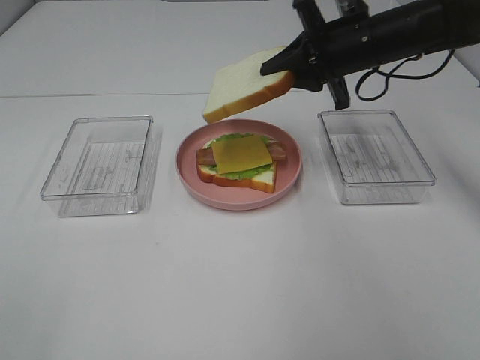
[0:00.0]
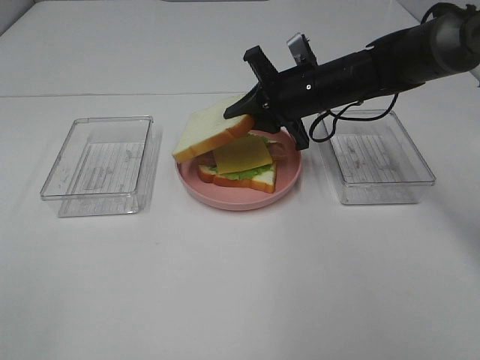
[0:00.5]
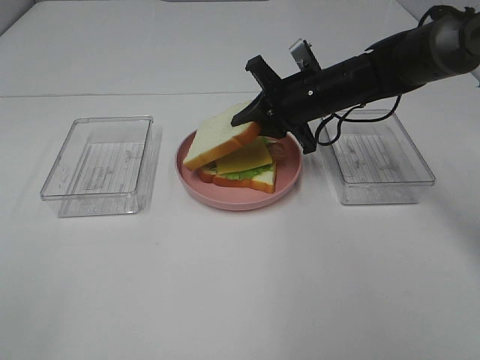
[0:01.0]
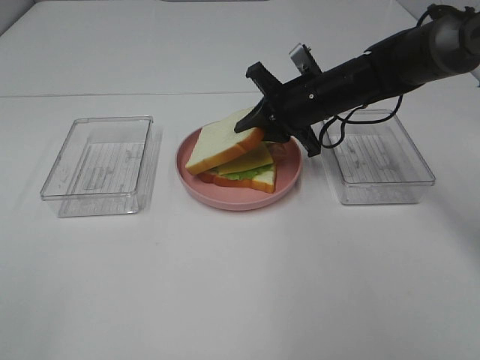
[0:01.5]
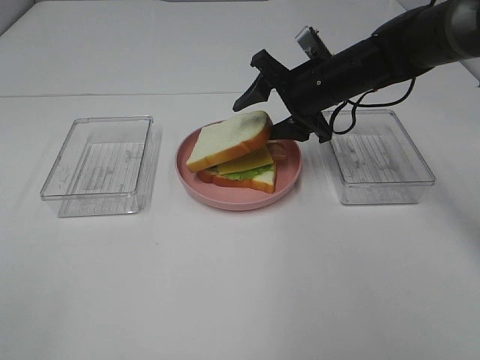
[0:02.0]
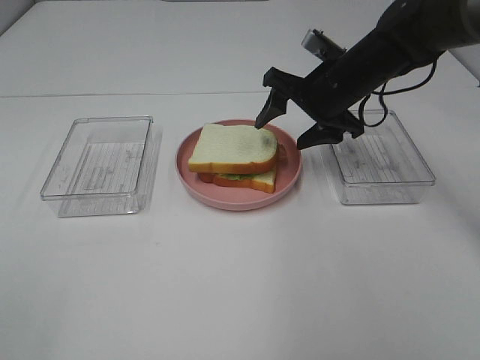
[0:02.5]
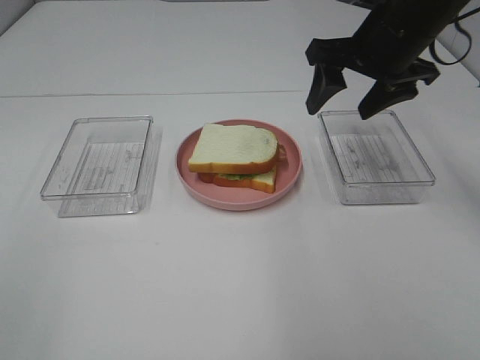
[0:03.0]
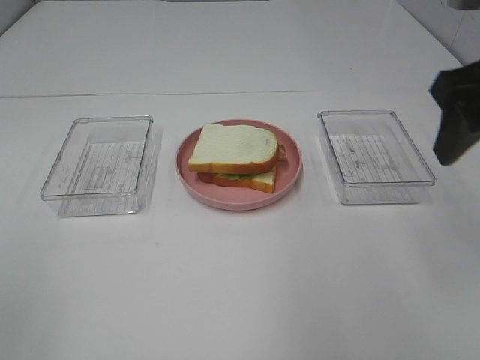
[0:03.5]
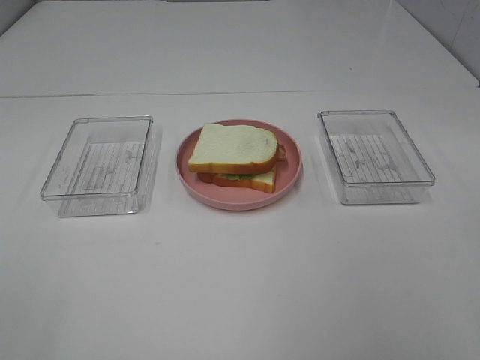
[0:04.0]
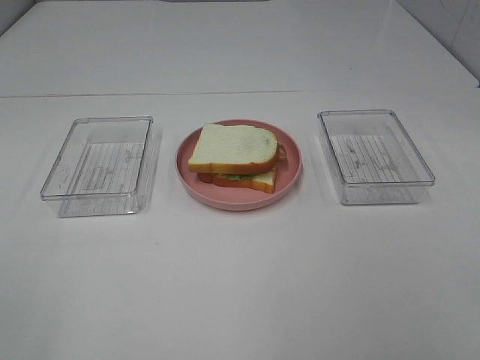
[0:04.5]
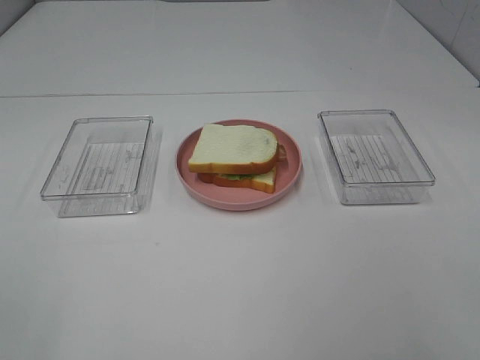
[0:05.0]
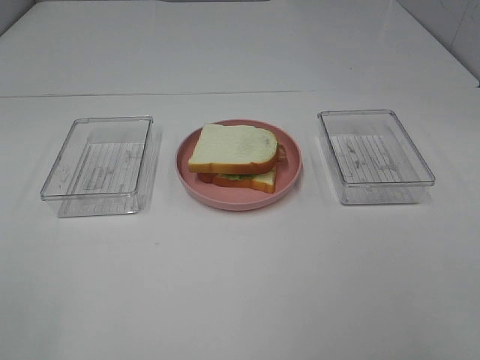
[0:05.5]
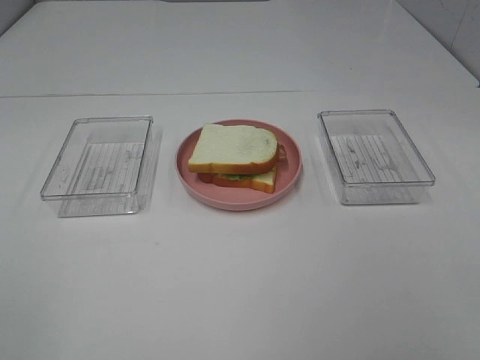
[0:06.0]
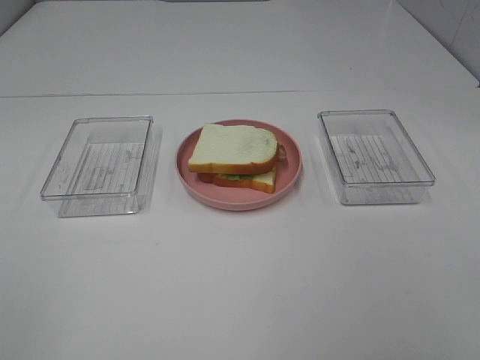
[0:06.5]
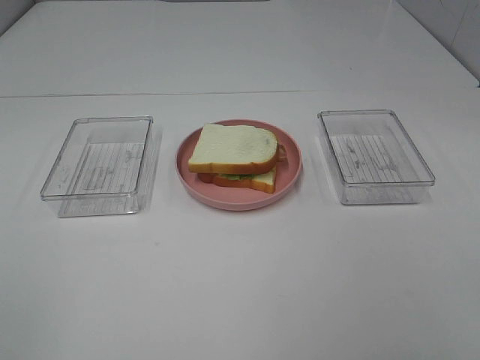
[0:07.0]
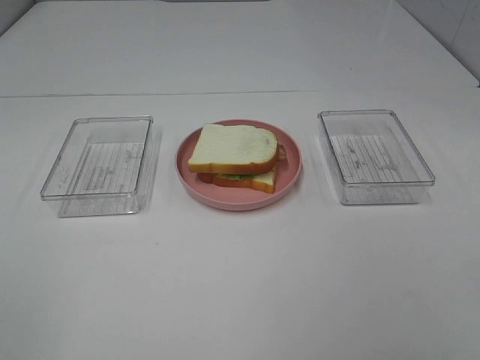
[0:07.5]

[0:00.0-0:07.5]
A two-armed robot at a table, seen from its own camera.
Task of the whole recording: Make sandwiches.
Step, 0:00.0 to 0:02.5: Right hand:place the bread slice on the cheese slice.
0:00.0 to 0:02.0: The right gripper changes place by some 5 cm, and opens up.
0:02.0 to 0:04.0: The right gripper travels backward, upward and to the right by approximately 40 cm.

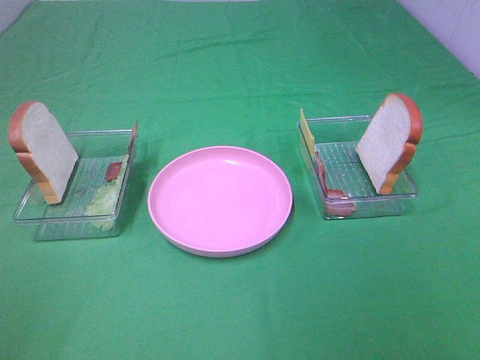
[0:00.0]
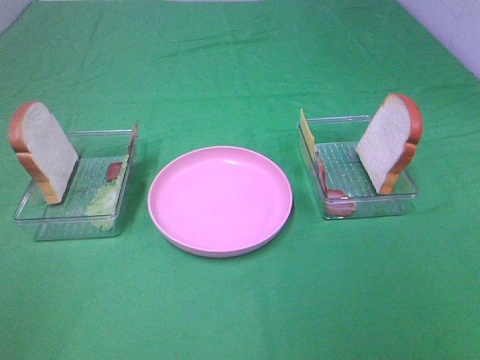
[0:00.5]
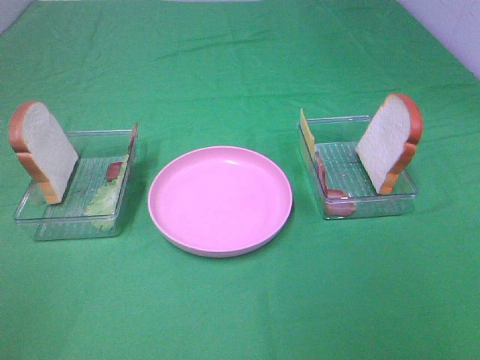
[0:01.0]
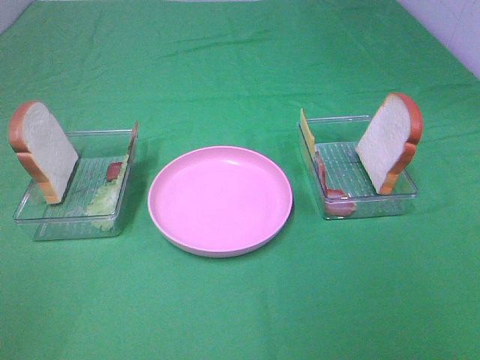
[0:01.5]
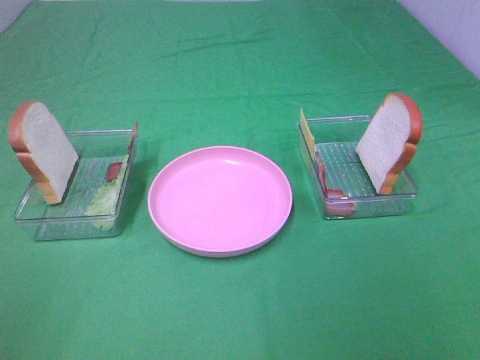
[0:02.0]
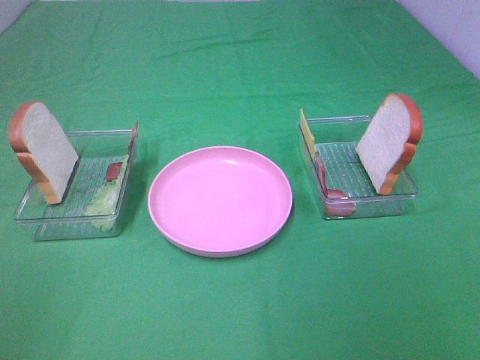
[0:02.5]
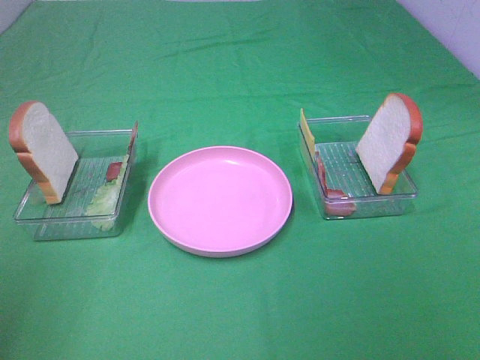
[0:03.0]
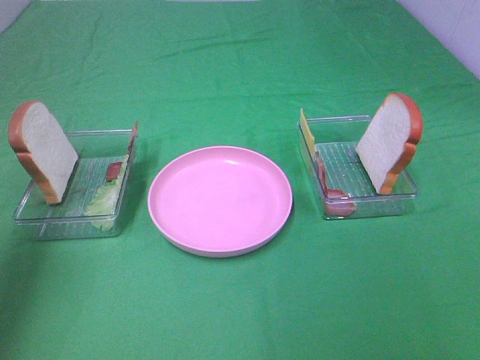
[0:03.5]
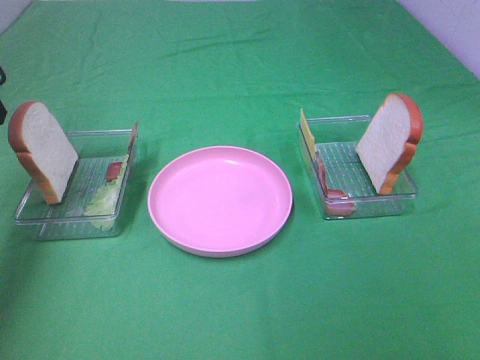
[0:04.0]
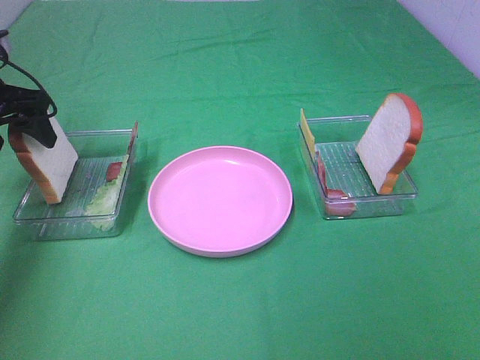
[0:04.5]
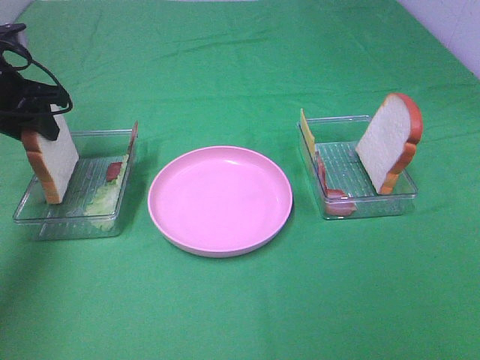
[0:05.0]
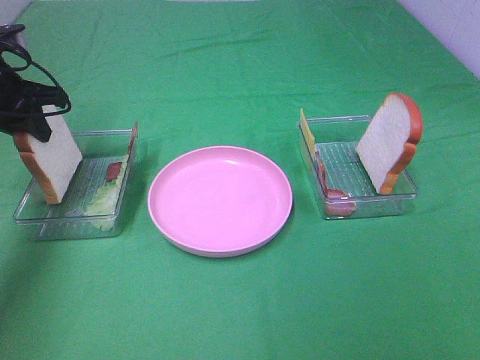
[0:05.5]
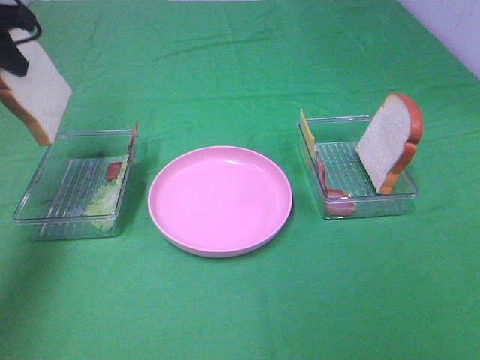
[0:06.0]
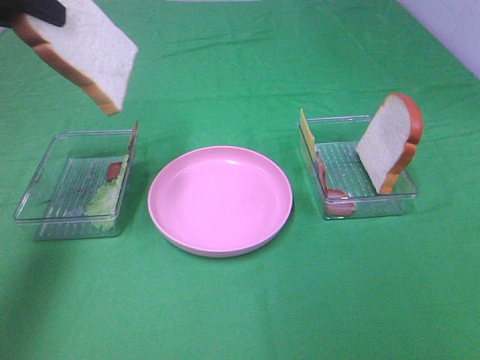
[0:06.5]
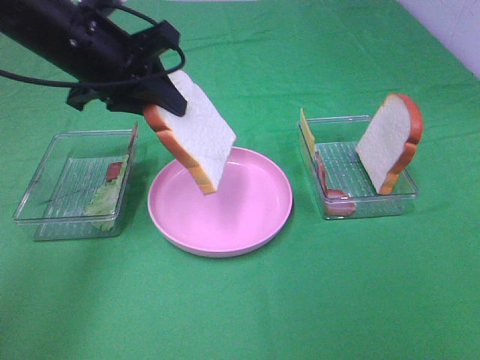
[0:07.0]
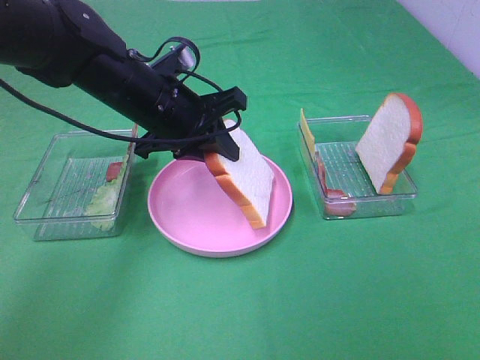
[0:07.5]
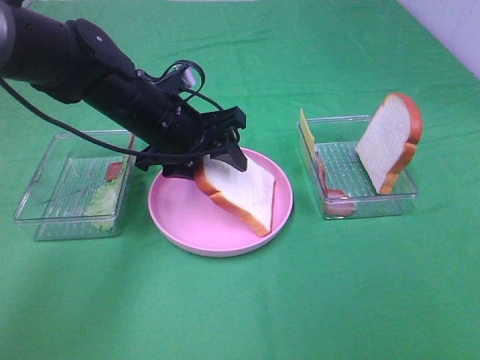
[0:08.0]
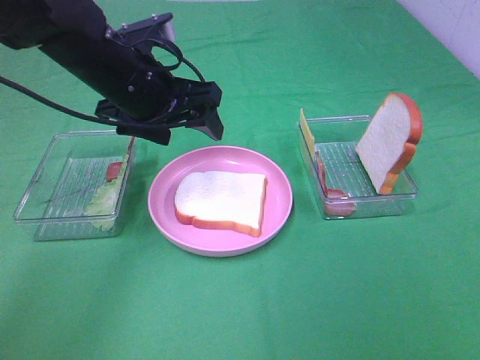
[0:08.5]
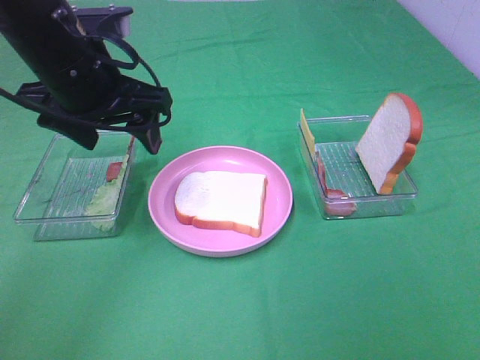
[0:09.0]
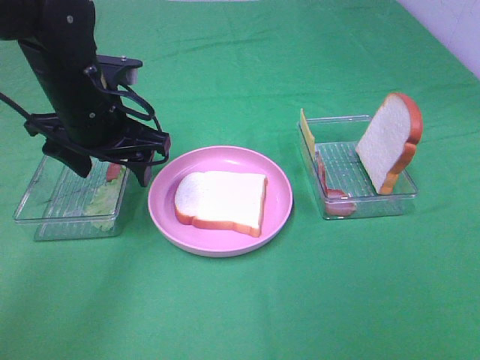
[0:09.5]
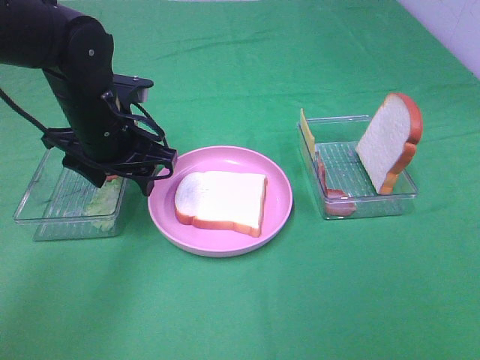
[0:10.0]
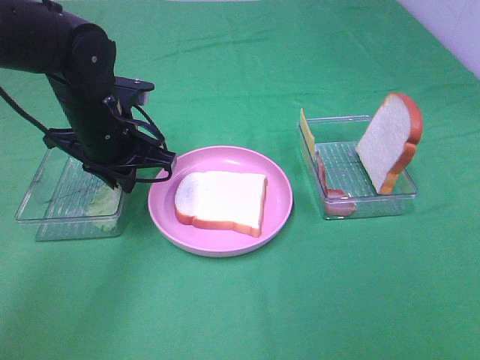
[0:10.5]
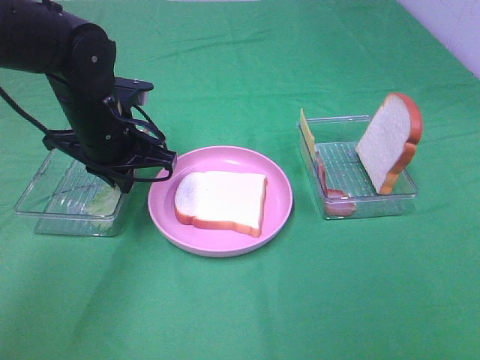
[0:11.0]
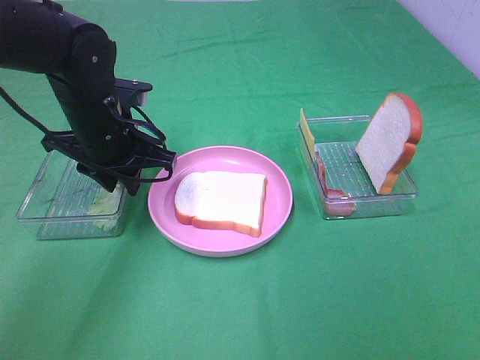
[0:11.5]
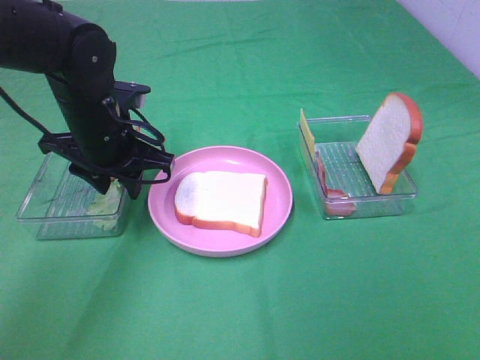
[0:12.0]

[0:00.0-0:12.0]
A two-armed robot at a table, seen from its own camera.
Task of the whole recording: Make sandwiches.
Step, 0:00.0 to 0:05.5: Left hand:grab the bread slice.
Step, 0:06.0 to 0:08.5: Left hand:place the bread slice on the plate.
0:00.0 to 0:02.0: Both grippers stay about where they are.
0:02.0 to 0:04.0: The left gripper heads forward, covering some 35 cm.
0:04.0 to 0:06.0: The left gripper closes its fingers.
0:06.0 to 0:08.0: The left gripper is displaced to the right and downward by some 25 cm, and opens.
0:08.0 to 0:10.0: The left gripper shifts some 5 cm to the left, and goes upward and returns, about 10 cm each way.
0:10.0 to 0:12.0: The left gripper closes and opens again.

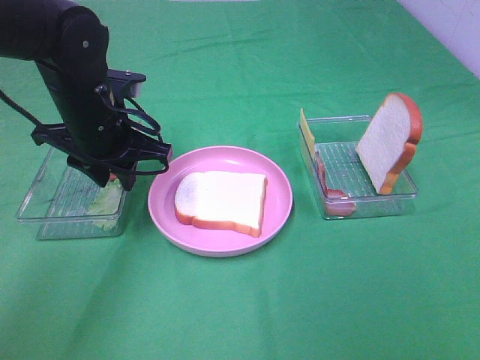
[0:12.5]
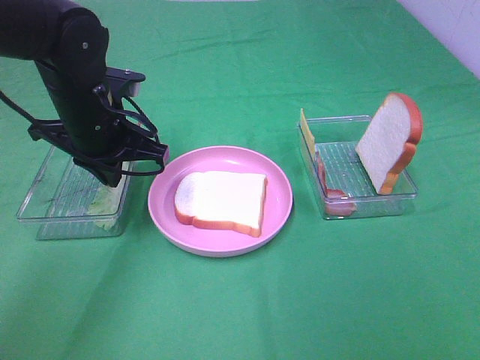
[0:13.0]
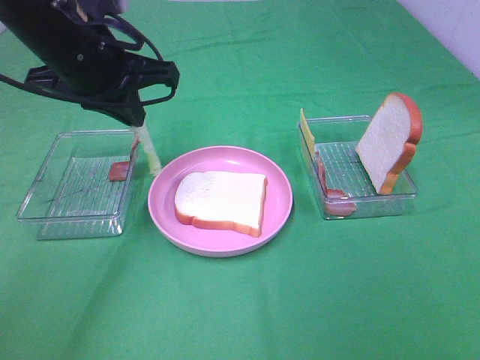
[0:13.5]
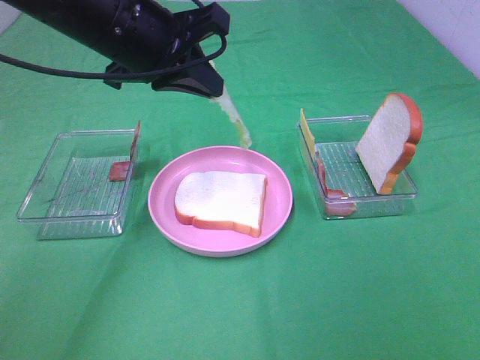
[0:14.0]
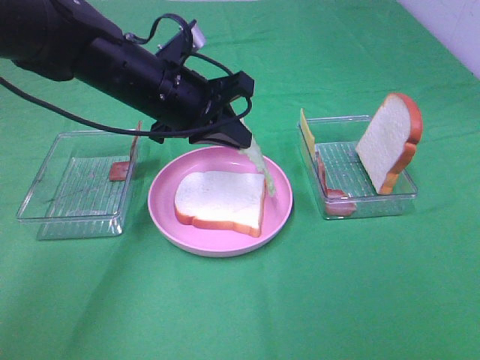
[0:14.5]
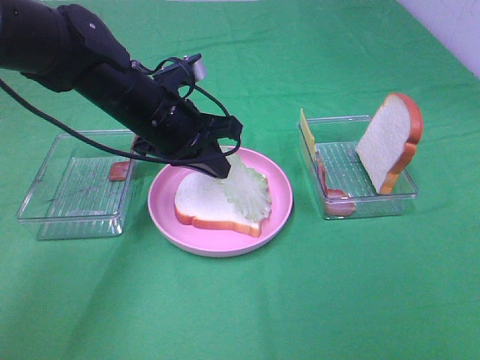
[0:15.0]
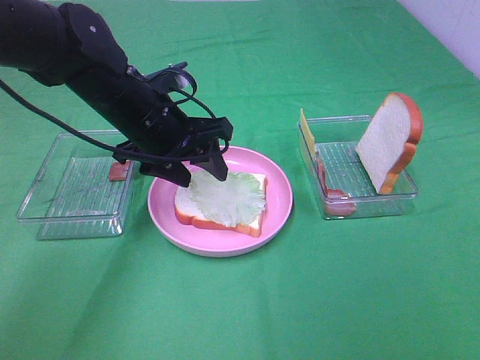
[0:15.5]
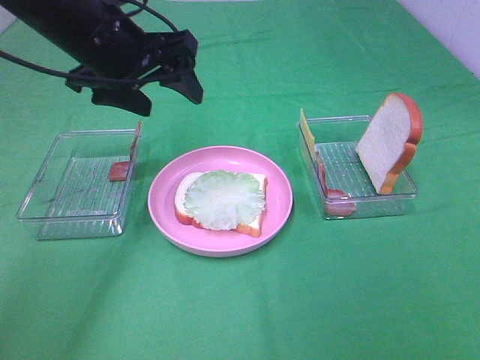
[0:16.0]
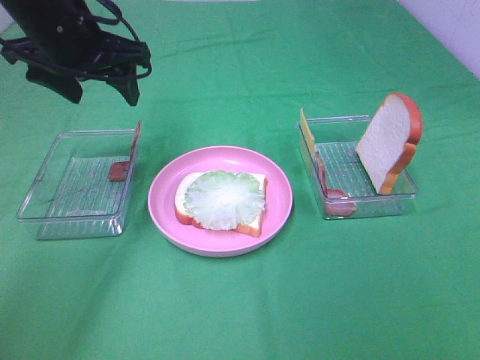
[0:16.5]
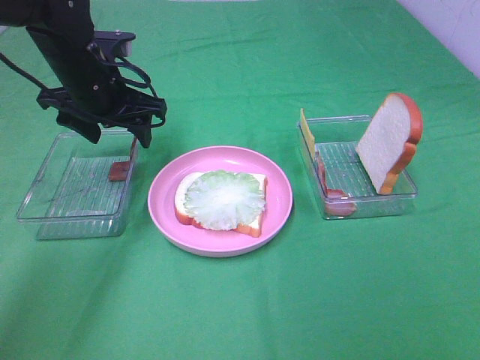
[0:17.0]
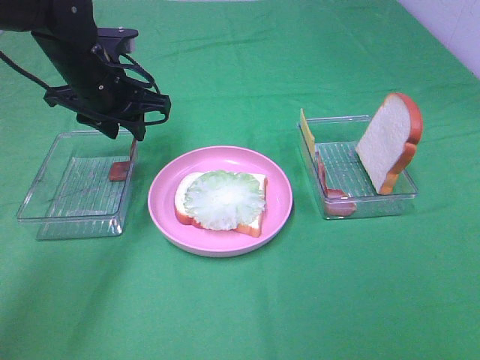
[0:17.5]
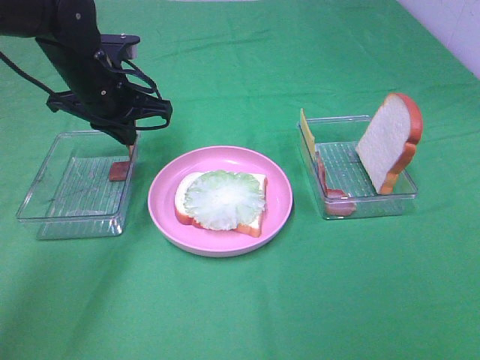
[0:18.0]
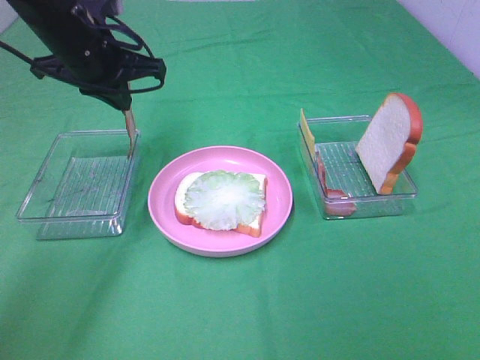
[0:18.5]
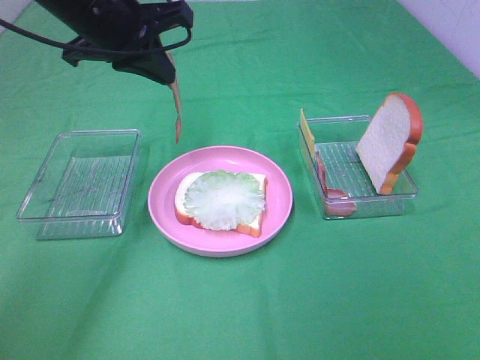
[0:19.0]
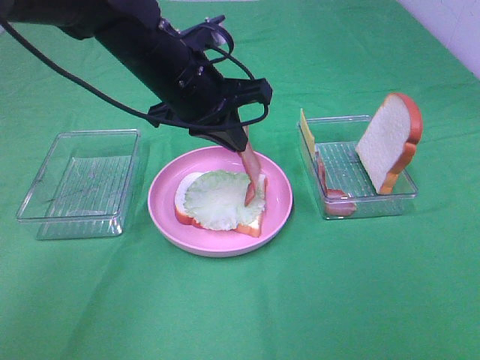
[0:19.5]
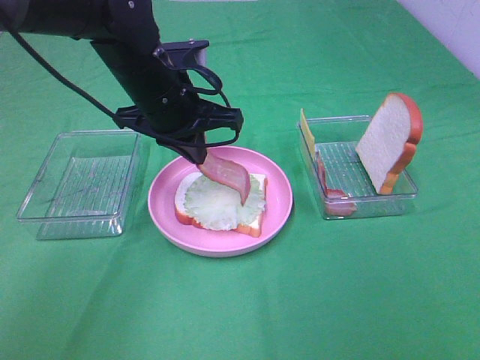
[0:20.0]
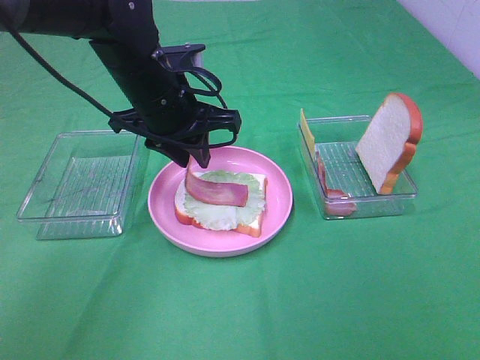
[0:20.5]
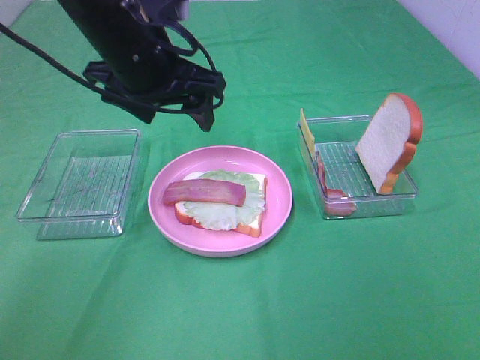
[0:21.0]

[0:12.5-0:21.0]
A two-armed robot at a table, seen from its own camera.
Task of the whole recording: Make sandwiches.
Step, 0:13.0 to 0:15.5: Left hand:place the lettuce slice on the bread slice.
Step, 0:16.0 to 0:18.0: Left hand:grab the bacon.
Step, 0:18.5 to 0:20.5: Left hand:place bacon on lettuce slice.
0:12.5 to 0:14.5: The left gripper heads to the right, covering some 5 cm, travels upward and back again, some 10 cm each way, and closes up.
0:14.5 to 0:16.5: The left gripper shifts about 10 cm to the left and upward, and opens.
0:16.5 to 0:19.0: The left gripper travels downward and back again, some 10 cm each way, and closes.
0:19.0 to 0:21.0: The left gripper travels downward and back again, approximately 10 cm each way, and opens.
